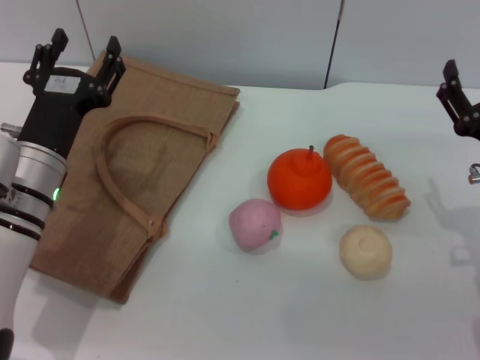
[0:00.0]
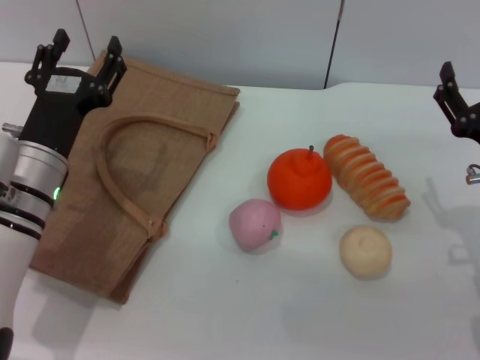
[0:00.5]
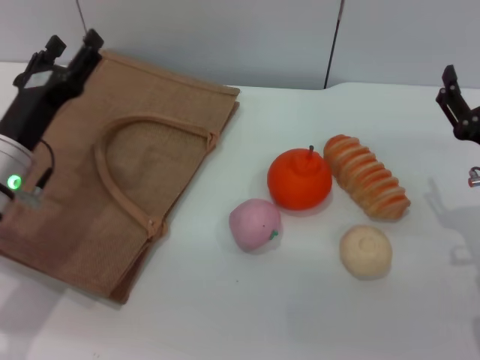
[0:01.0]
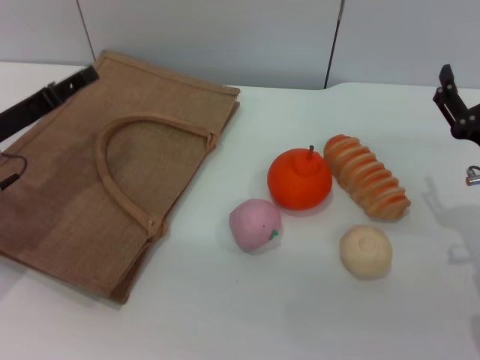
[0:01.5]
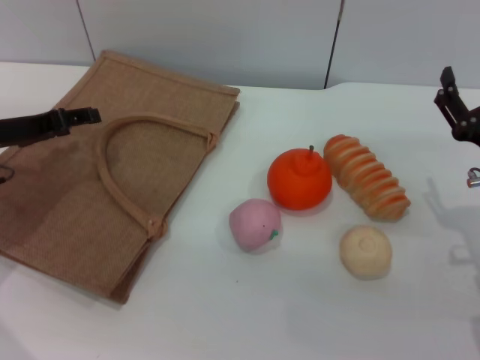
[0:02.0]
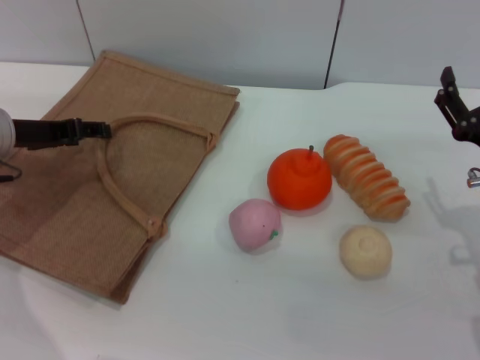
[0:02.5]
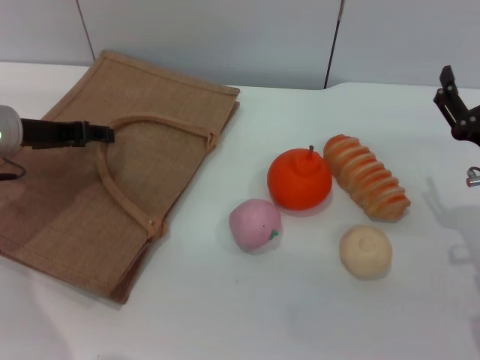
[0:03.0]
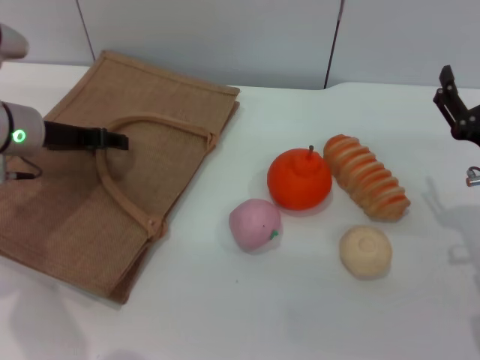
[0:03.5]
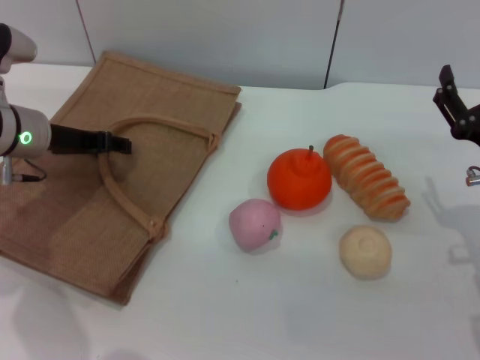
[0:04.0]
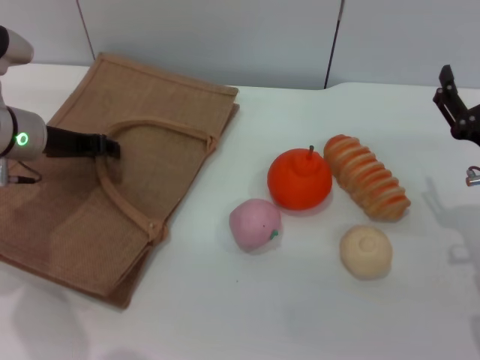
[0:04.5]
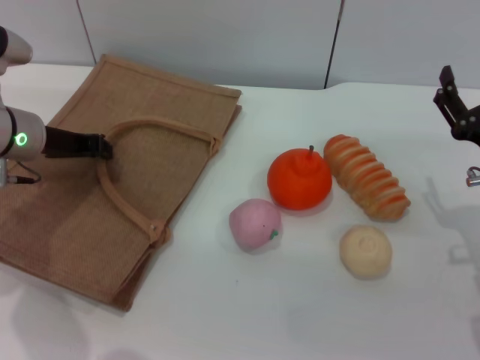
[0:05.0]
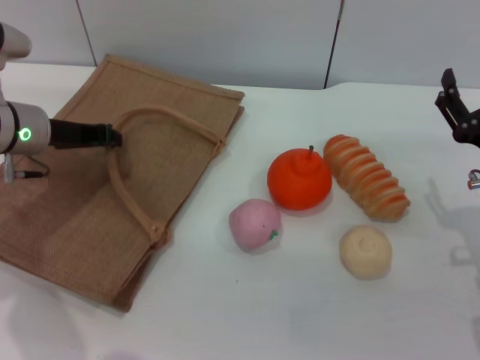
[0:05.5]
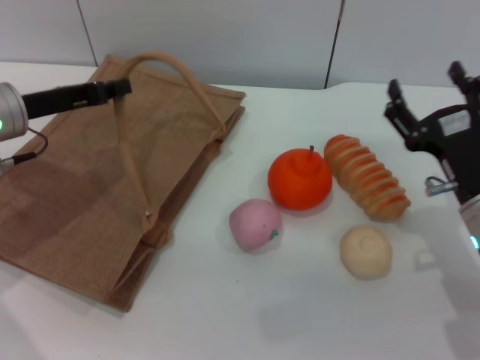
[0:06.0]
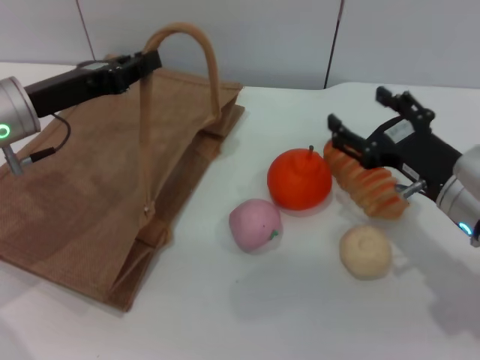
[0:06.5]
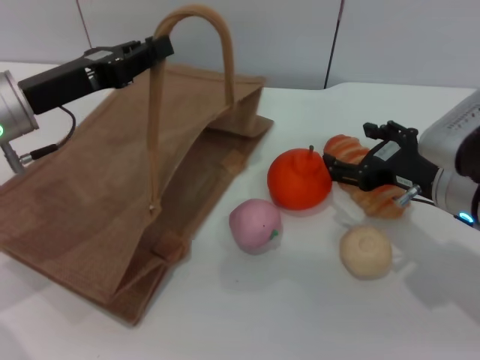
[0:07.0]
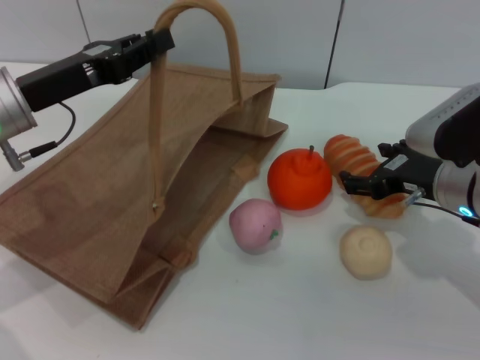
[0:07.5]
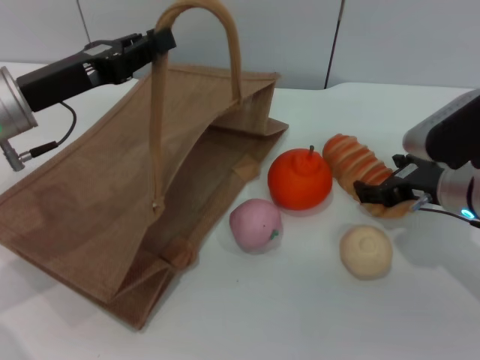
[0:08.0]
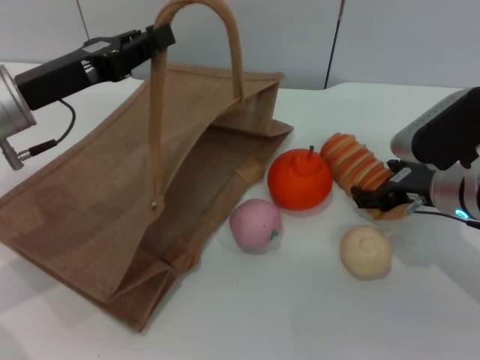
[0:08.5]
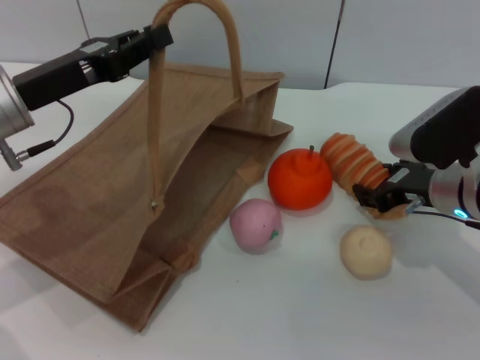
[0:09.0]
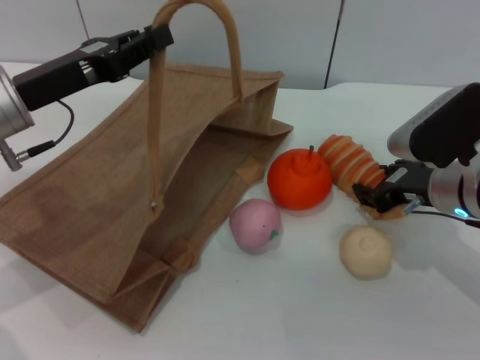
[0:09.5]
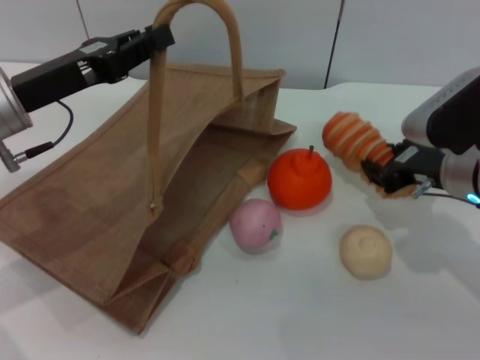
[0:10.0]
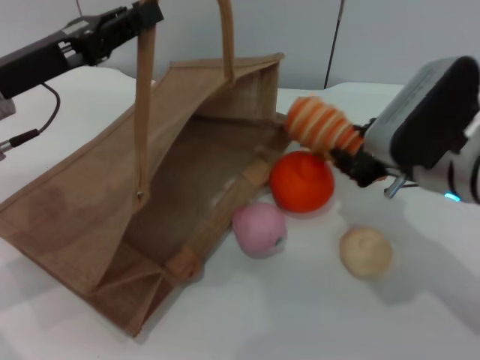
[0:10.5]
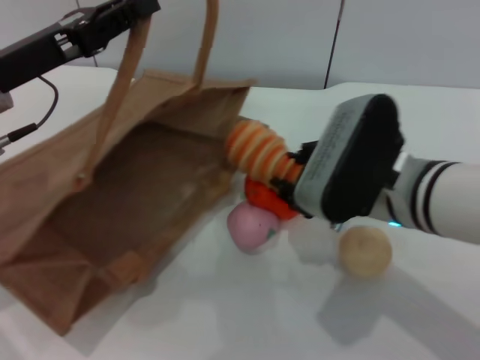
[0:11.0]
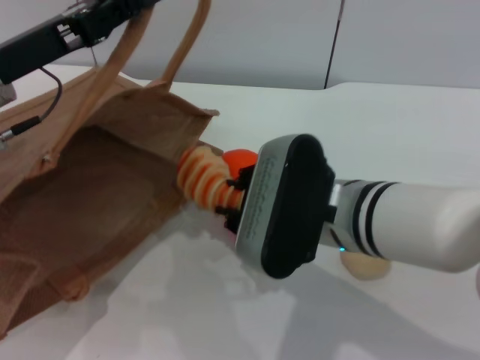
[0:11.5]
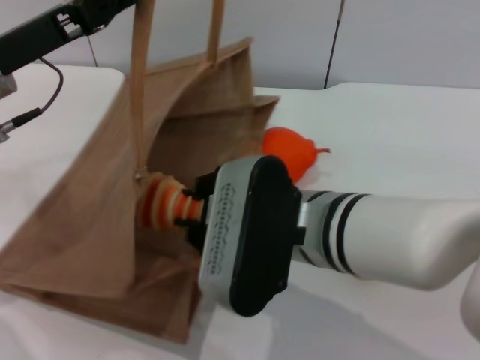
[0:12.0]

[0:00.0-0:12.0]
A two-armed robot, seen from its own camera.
Task of the whole recording: pick up the bread from the table and place it in the brown handbag.
Step, 0:00.0 to 0:05.5: Lift the woven bag with the left gripper to open it.
Step, 0:06.0 to 0:10.0: Pick up the bread with the right gripper.
0:00.0 to 0:02.0: The left gripper moves to the left and forward, about 10 cm.
0:02.0 to 0:04.0: The left gripper moves approximately 5 cm.
0:04.0 to 0:06.0: The left gripper closes.
0:06.0 to 0:08.0: The right gripper travels forward by approximately 5 cm.
0:08.0 to 0:10.0: The right gripper closes up.
0:10.0 to 0:12.0: The right gripper goes roughly 20 cm to the left and backward.

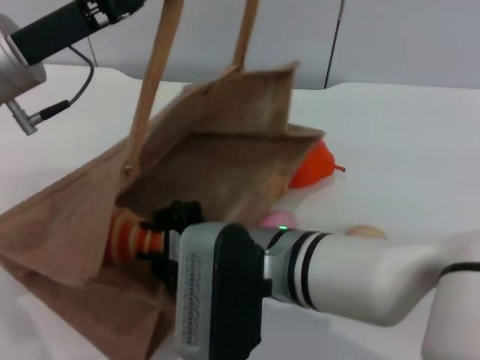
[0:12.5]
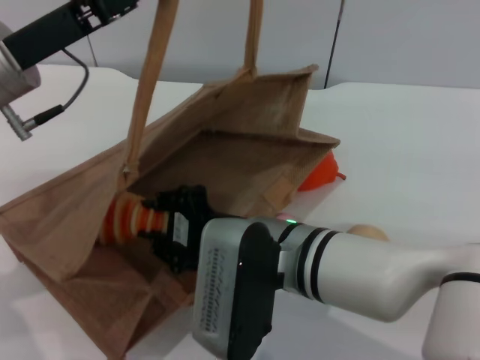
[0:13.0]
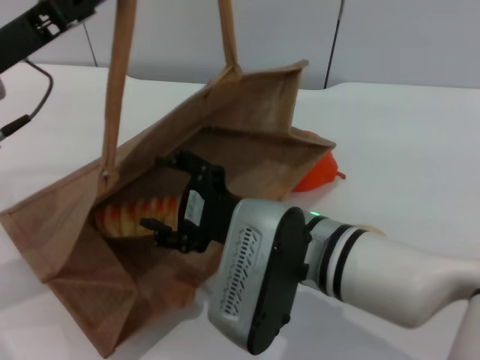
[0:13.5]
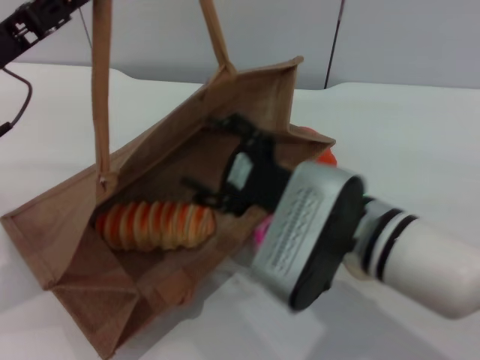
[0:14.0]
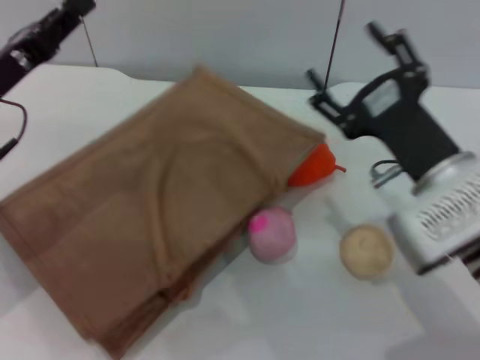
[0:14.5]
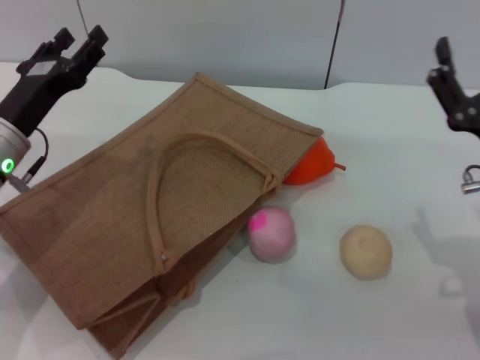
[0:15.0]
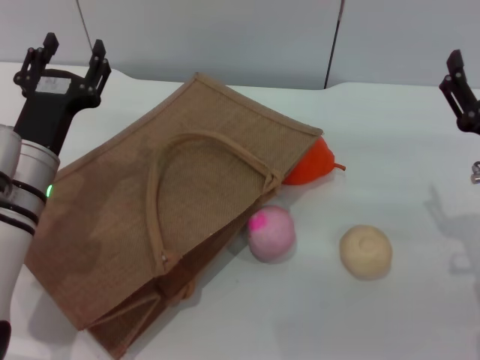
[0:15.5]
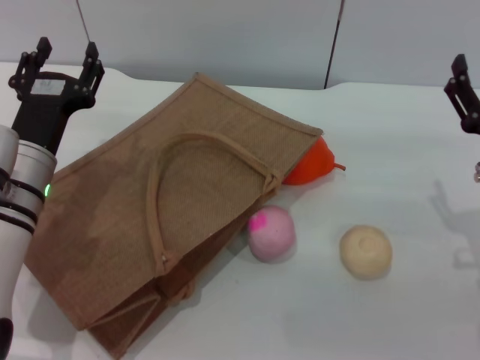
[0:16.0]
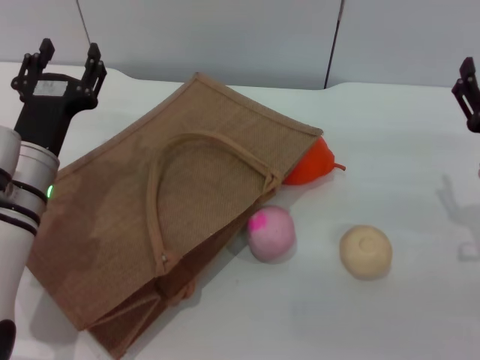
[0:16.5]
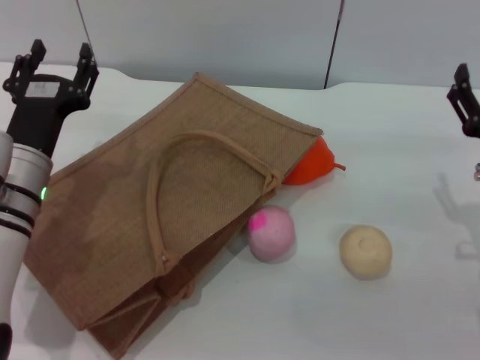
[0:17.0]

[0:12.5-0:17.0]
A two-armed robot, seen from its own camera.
Task of the whole recording: pick up the bread from the table and place it in the brown handbag.
0:12.5 to 0:14.5: The right gripper heads to the right, covering roughly 15 cm, and opens up, while the left gripper shifts some 10 cm downward and to the left.
0:14.5 to 0:17.0: The right gripper goes some 10 cm to the right and downward. Meanwhile the left gripper heads downward and to the right, covering about 10 cm, and opens up.

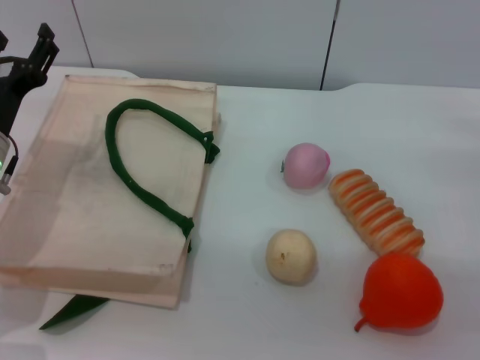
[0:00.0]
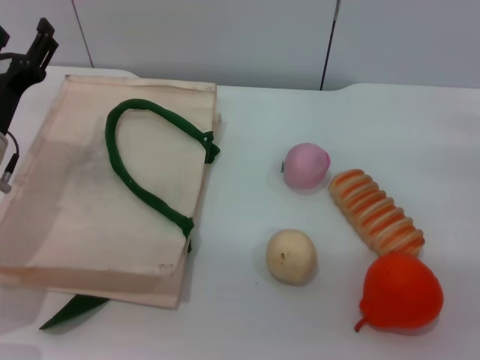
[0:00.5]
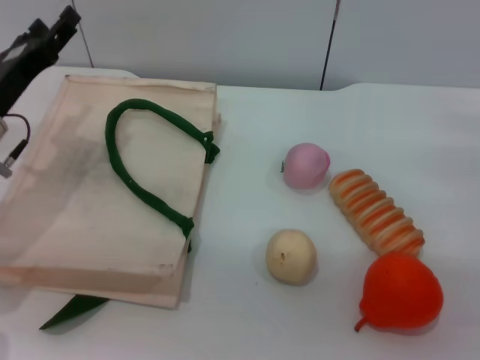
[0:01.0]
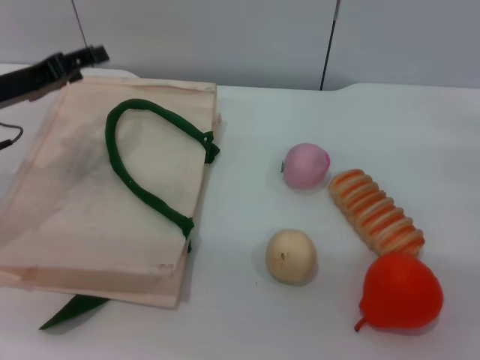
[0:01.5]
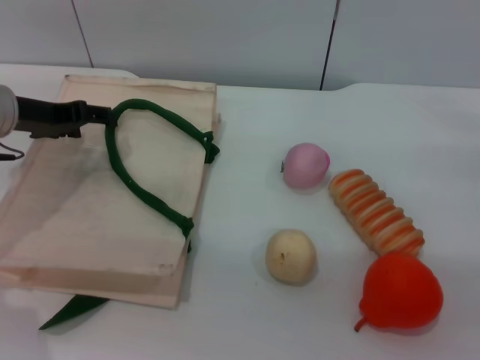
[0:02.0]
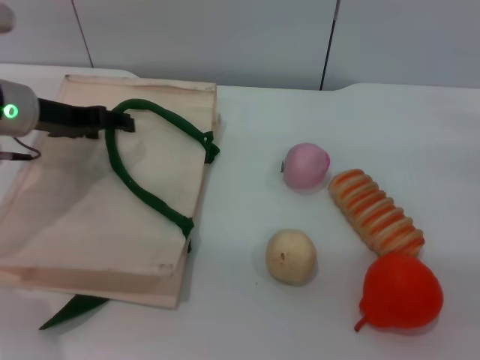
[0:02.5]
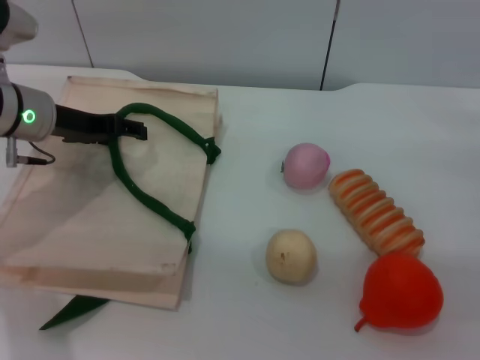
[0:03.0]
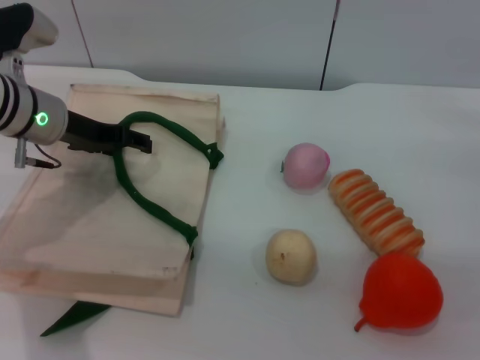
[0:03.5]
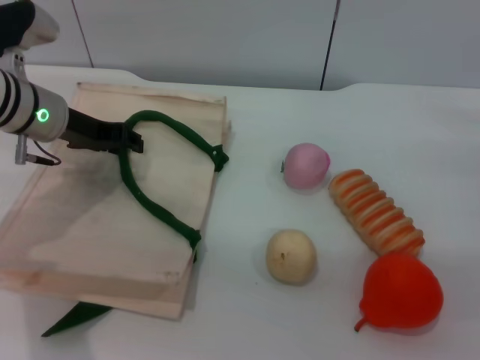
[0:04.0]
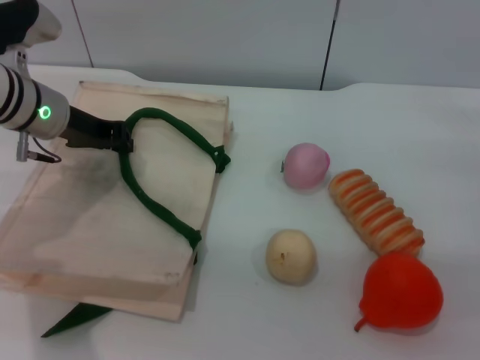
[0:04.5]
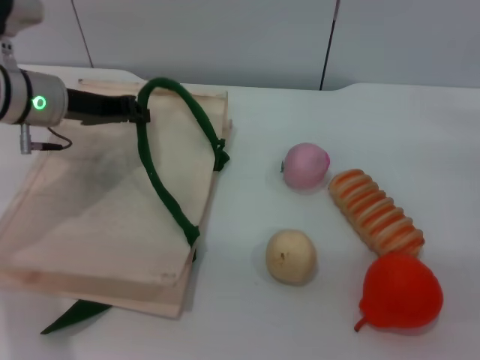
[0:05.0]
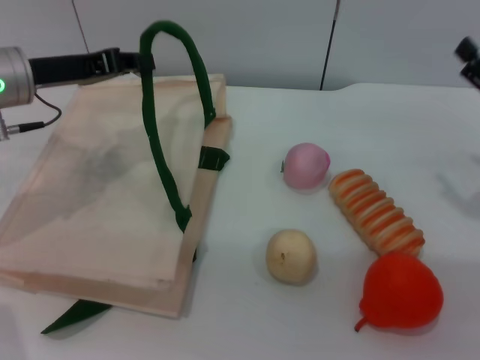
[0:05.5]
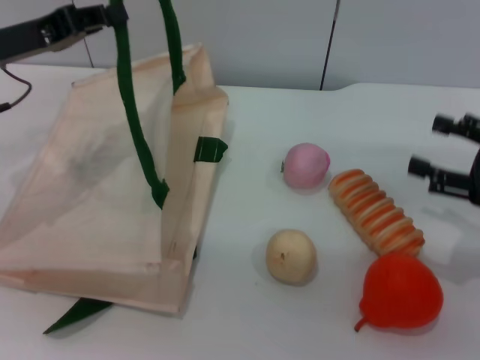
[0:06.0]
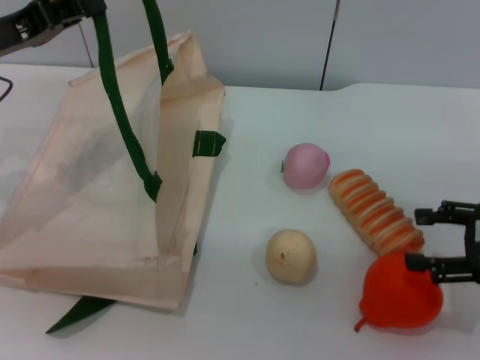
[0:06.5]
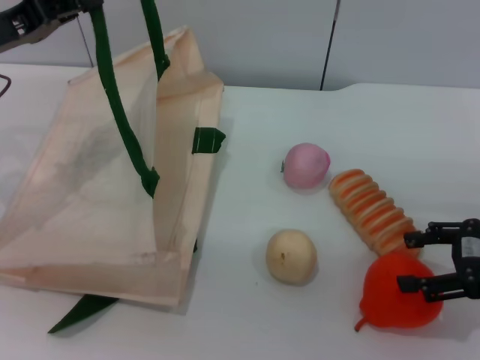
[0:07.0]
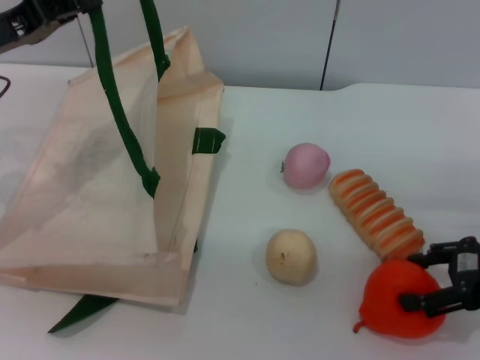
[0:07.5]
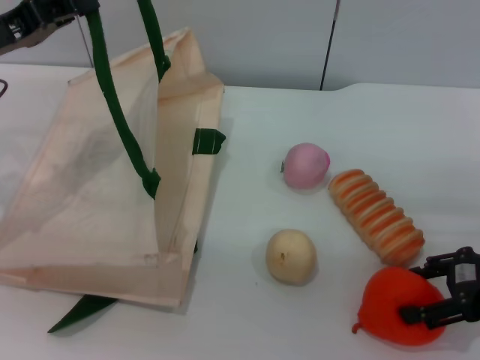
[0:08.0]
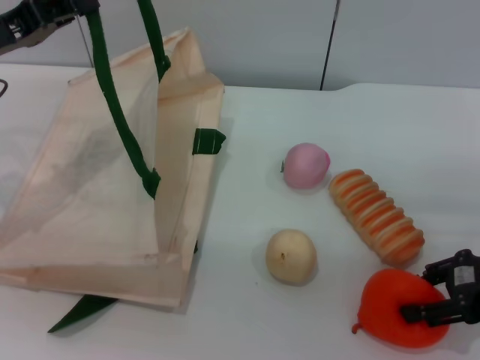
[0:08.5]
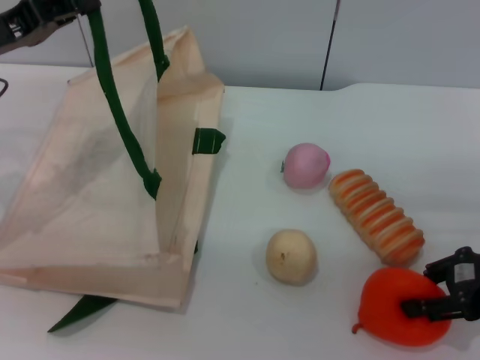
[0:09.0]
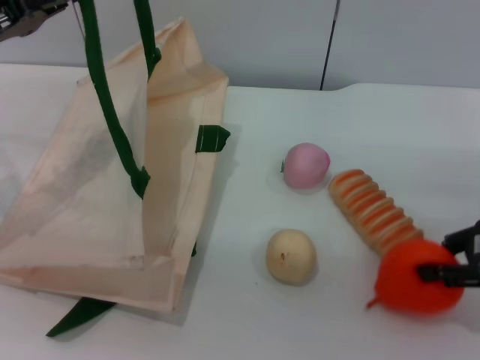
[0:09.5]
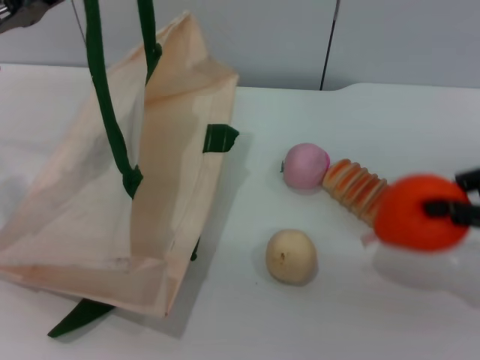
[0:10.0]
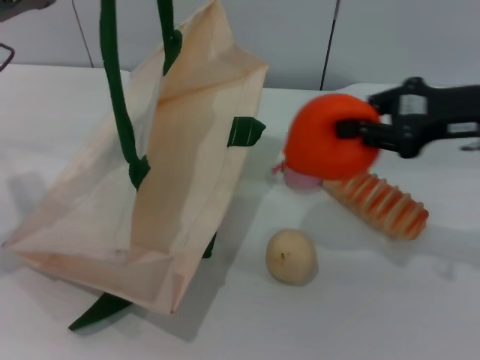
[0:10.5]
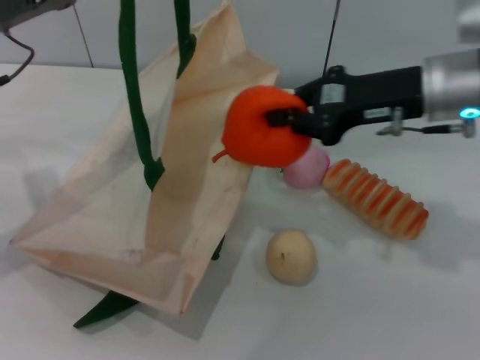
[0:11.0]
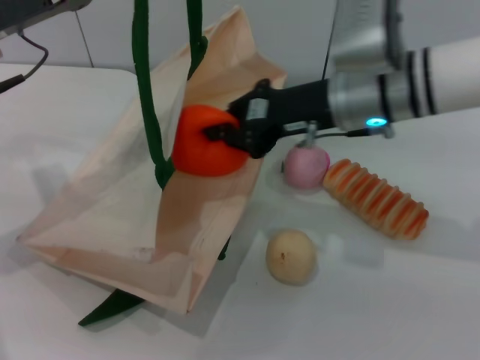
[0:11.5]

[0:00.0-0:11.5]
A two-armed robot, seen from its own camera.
Task of the whole recording: pick up the orange and peach from the table and place it in the white handbag.
Step, 0:00.0 to 0:05.0: Lift the woven bag with the left gripper to open it.
Step, 0:05.5 to 0:10.0: Pick up the orange with the right gripper.
0:00.0 to 0:02.0: The left gripper moves upward and forward, some 10 cm.
0:02.0 to 0:04.0: The left gripper shifts by some 5 cm.
0:04.0 to 0:06.0: The right gripper moves some 5 cm; the left gripper moves approximately 10 cm, and closes.
0:07.5 to 0:09.5: The right gripper closes its fingers.
0:09.5 to 0:11.5: The right gripper heads to the left and forward, covering approximately 25 cm, and closes its fingers.
